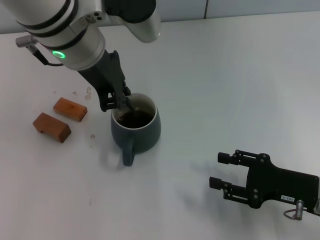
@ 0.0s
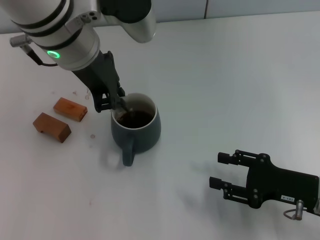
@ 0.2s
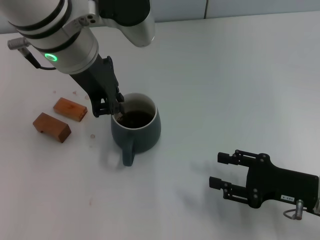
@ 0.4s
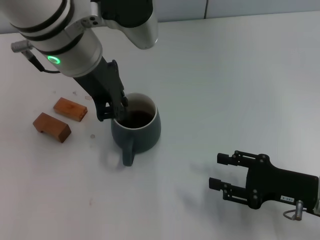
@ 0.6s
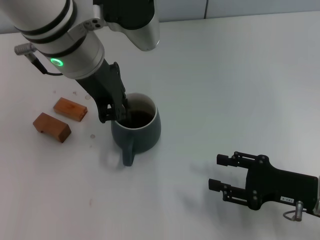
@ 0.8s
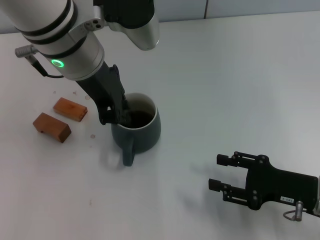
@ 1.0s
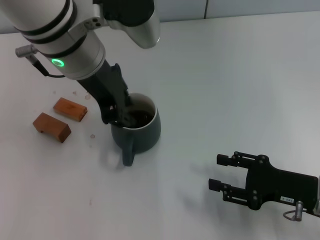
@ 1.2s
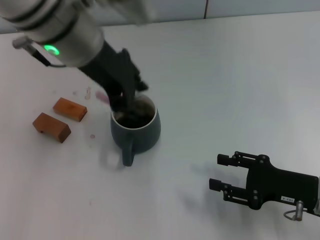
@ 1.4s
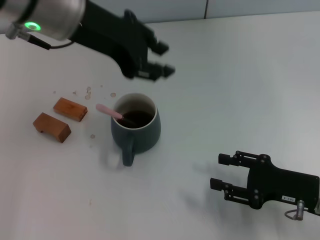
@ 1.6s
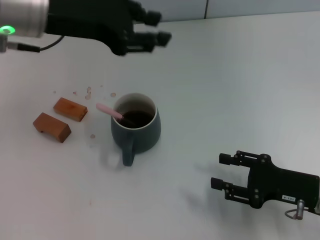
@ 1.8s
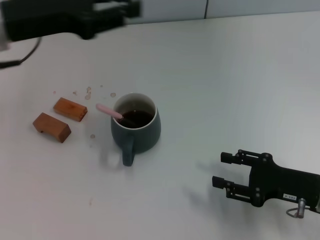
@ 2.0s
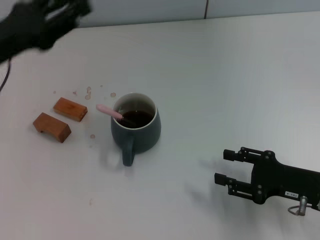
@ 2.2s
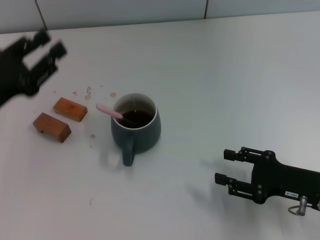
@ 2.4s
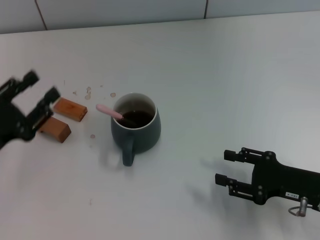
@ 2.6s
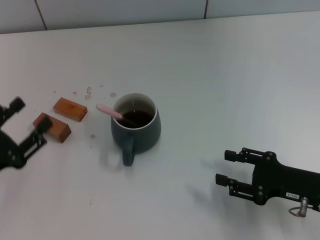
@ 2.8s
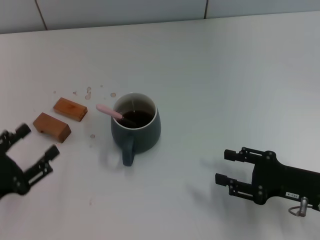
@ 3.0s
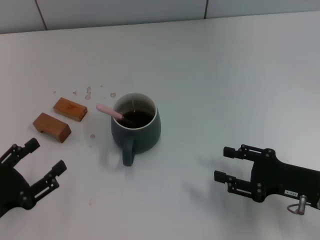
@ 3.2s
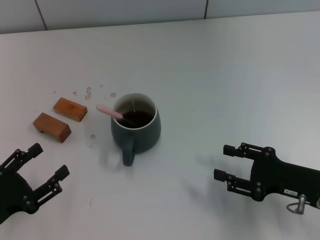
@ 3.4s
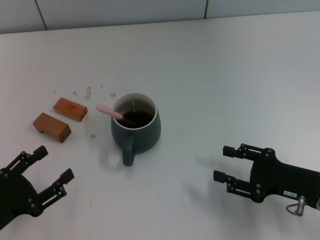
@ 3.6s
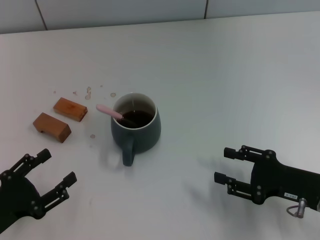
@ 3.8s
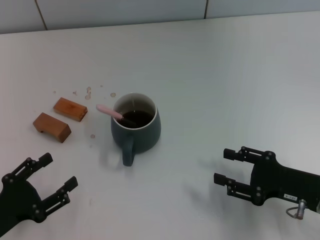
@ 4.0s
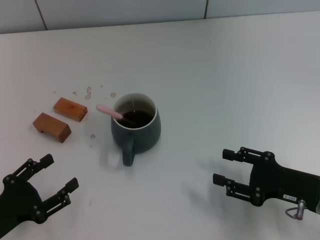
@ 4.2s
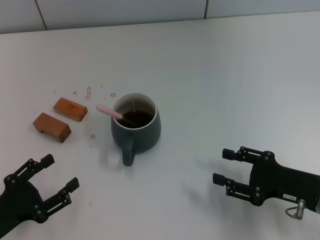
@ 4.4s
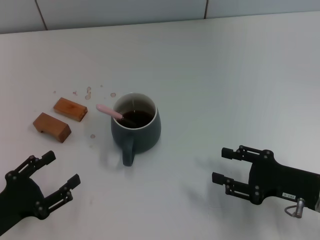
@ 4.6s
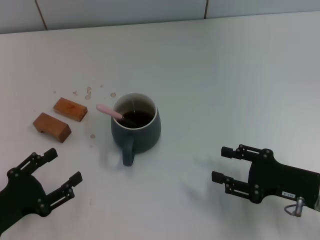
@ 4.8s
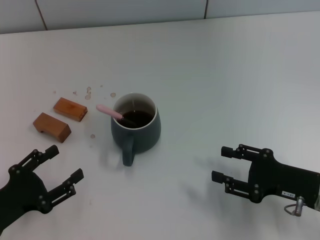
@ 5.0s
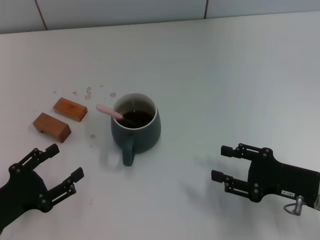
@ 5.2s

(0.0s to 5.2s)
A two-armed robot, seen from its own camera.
Task of the whole recording: Move the grey cup to the center, lift the pink spoon, stir it three times in the cup, and put the spoon into the cup.
0.0s - 1.8s: The left gripper is displaced to the left by roughly 10 cm, and opens up.
1.8s - 3.4s: The left gripper shifts about 35 cm downward, backward and to the left, and opens its fingers.
3.4s - 5.2s: There are only small adjustments of the grippers.

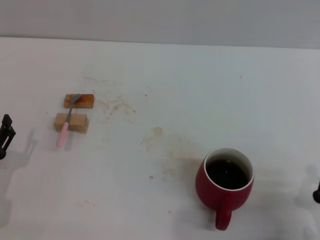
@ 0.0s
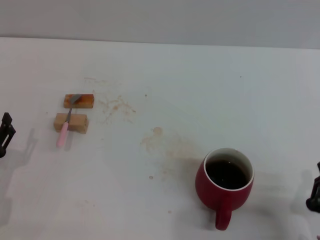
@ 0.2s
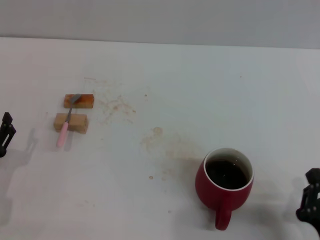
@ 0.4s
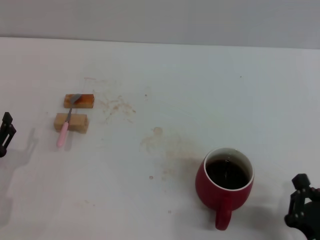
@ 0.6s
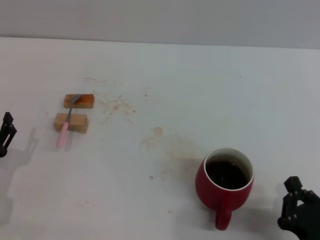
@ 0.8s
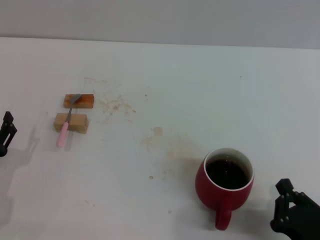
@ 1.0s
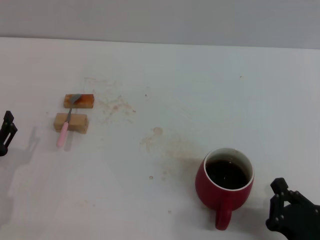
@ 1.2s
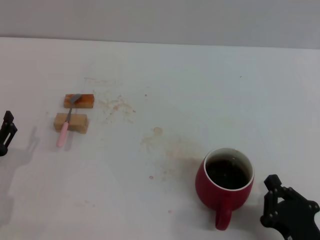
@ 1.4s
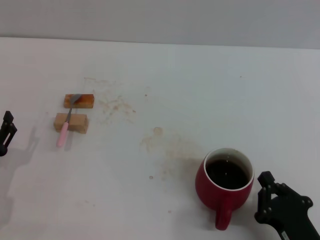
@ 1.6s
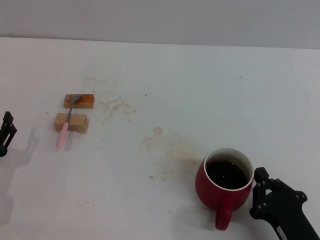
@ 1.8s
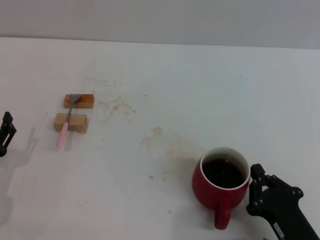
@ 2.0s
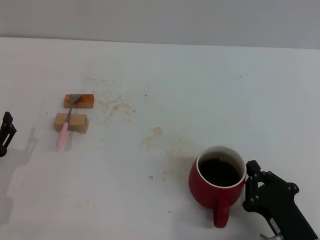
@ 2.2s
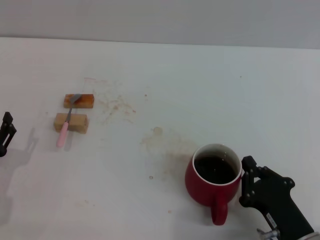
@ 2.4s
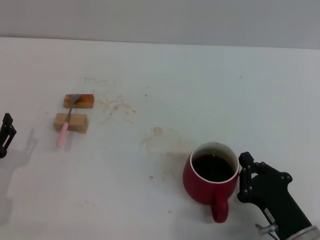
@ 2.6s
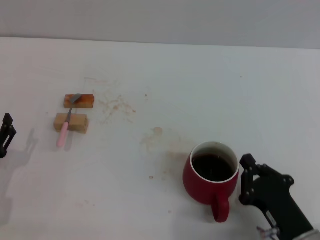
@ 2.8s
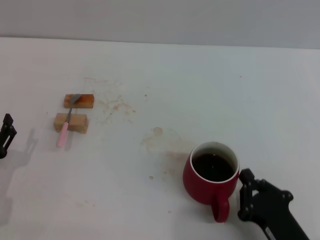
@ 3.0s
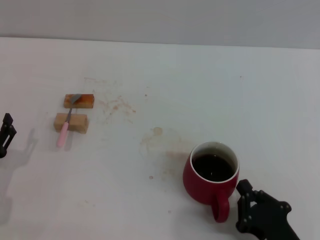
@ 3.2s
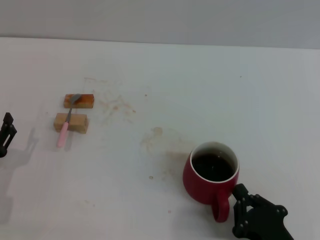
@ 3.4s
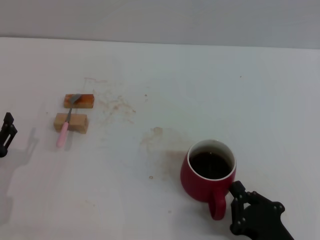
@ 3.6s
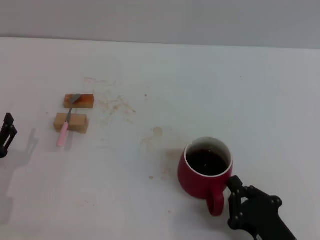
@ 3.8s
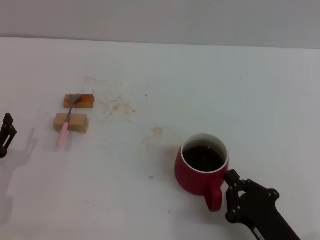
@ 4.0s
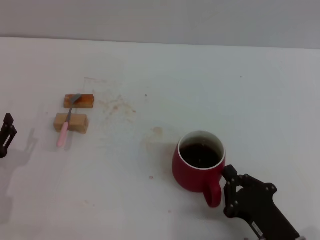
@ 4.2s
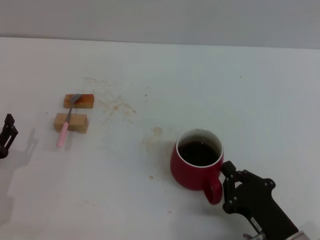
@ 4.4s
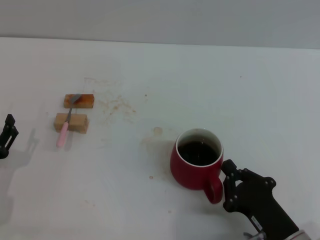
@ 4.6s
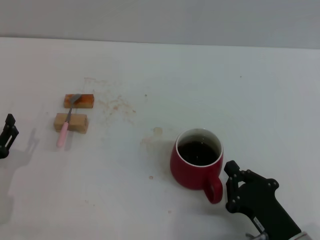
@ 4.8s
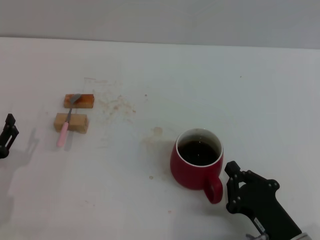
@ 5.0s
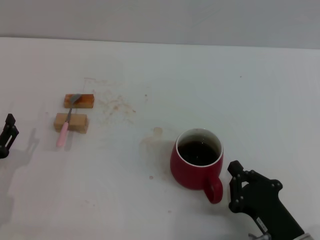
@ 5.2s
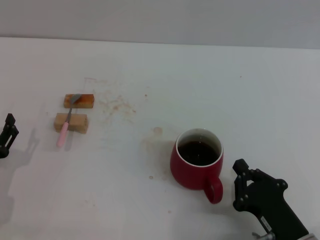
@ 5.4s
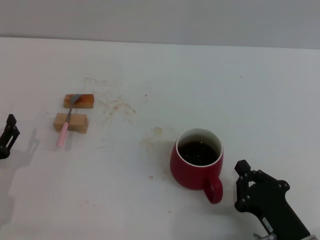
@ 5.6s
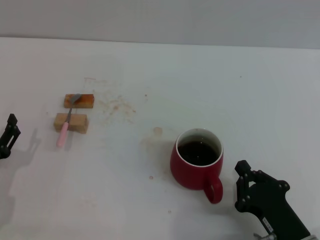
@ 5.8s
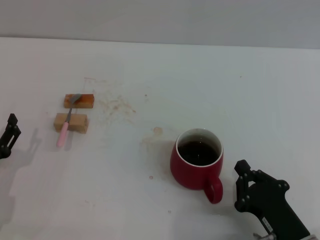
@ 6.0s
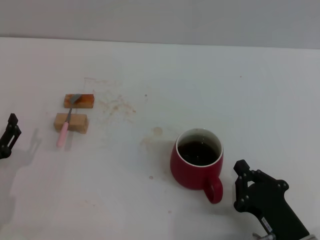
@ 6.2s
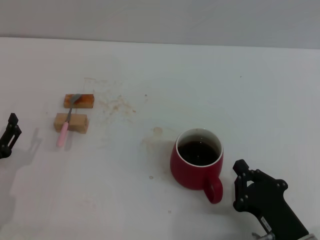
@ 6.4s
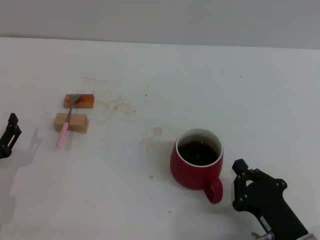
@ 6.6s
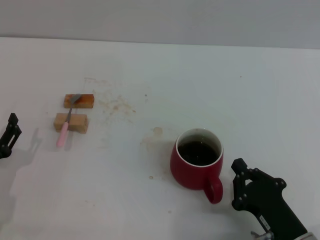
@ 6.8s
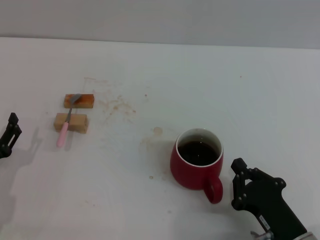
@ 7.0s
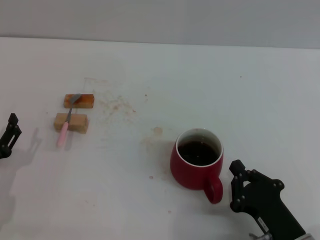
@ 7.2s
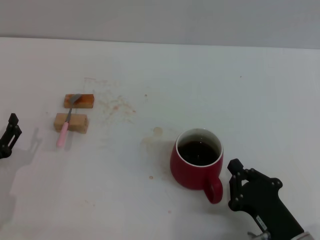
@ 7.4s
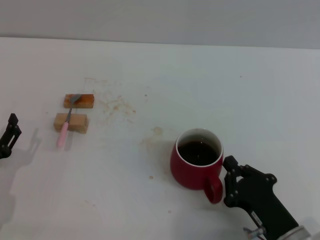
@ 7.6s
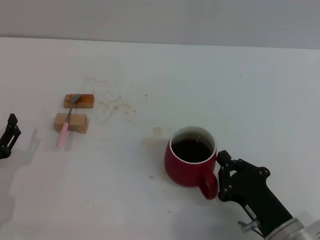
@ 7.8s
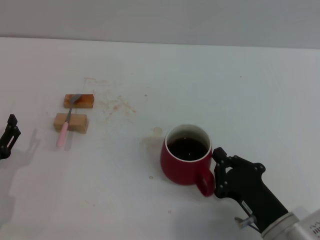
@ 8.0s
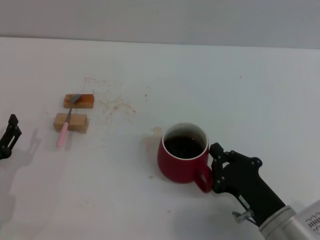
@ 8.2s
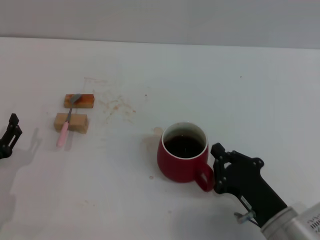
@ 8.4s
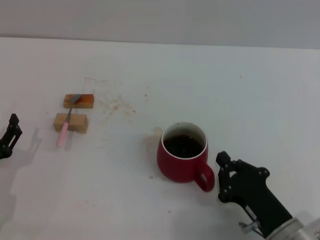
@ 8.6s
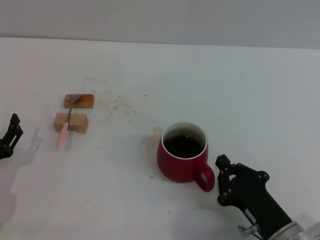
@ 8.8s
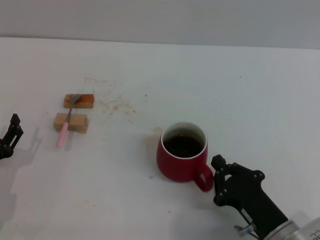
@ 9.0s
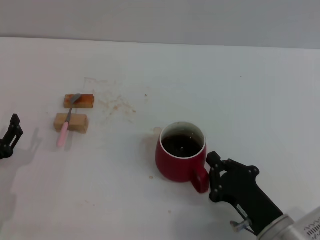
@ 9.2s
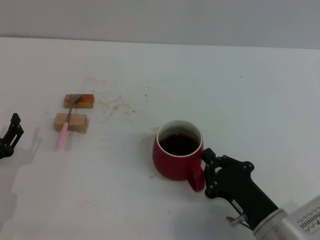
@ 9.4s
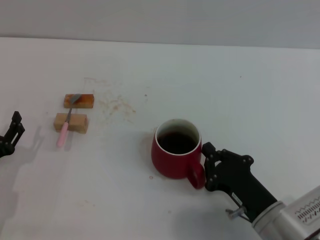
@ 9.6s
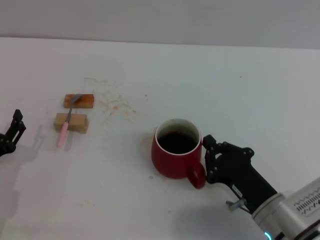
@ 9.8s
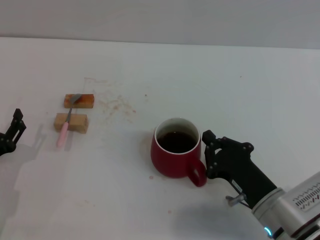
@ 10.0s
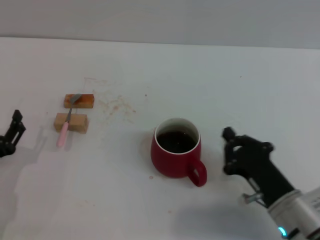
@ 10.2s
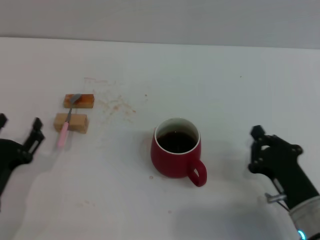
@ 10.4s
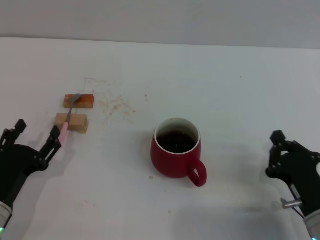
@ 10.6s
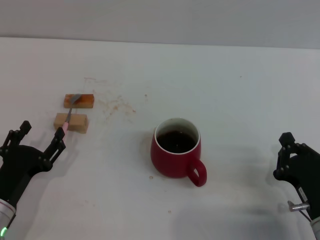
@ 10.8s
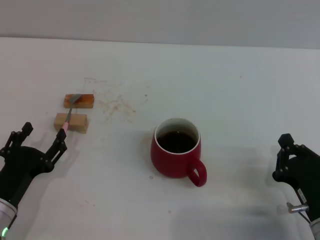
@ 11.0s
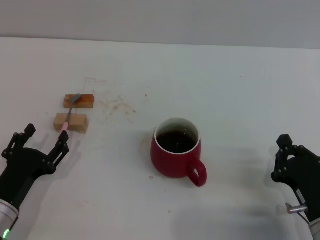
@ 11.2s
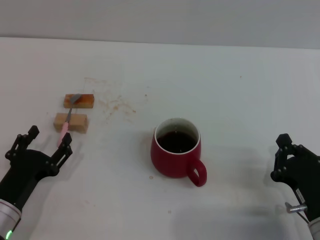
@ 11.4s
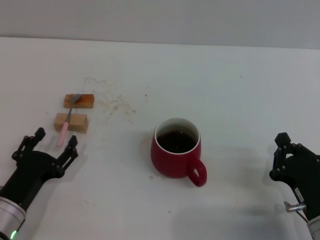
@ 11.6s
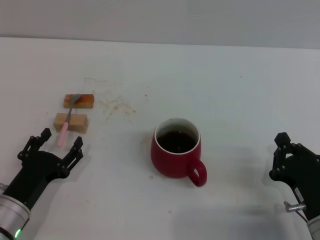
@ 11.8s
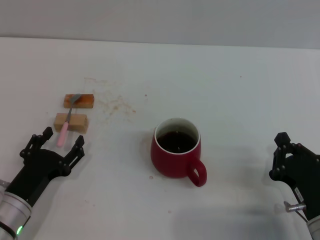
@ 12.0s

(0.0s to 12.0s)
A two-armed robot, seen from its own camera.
Task of the whole recording: Move the red cup to the center, lift the pink spoon, stir it three times in the cup, and put the spoon into the cup.
Step, 0.0s - 10.2s: Move the cup with coffee to the center of view with the right gripper.
0.0s - 1.6s: The grippers stay close to where they were, moving slightly.
1.6s - 4.4s: There are only small adjustments of the grippers.
4.4s - 7.6s: Neither gripper changes place.
7.6s - 12.0s: There are only small adjustments of the grippers.

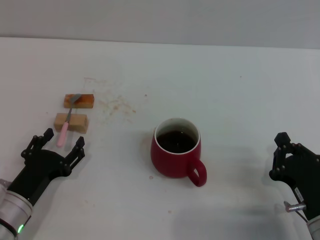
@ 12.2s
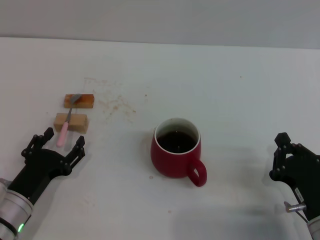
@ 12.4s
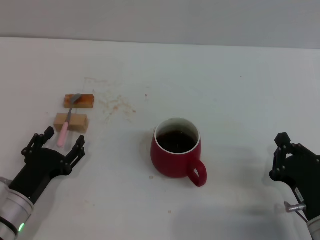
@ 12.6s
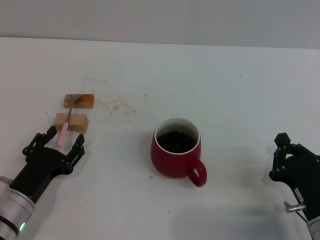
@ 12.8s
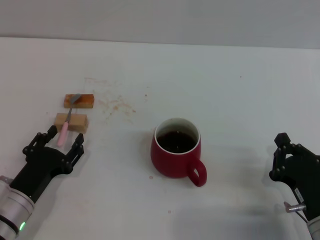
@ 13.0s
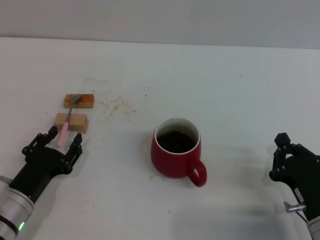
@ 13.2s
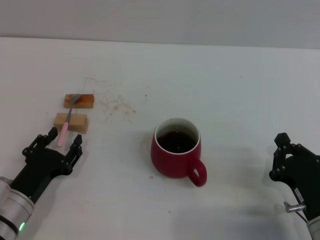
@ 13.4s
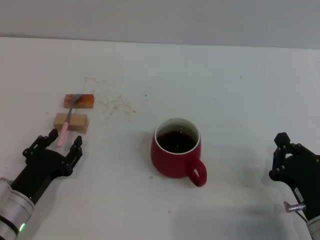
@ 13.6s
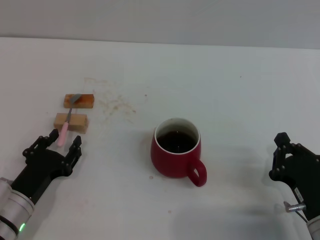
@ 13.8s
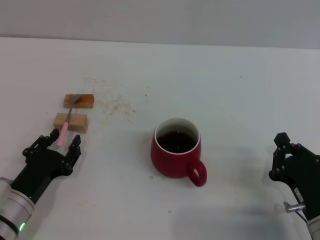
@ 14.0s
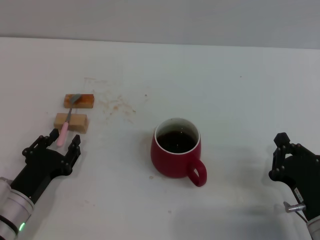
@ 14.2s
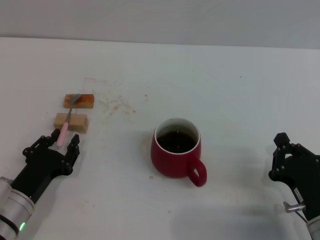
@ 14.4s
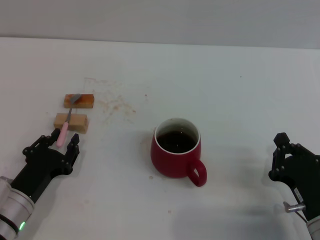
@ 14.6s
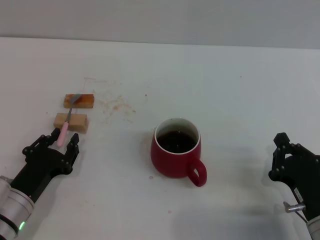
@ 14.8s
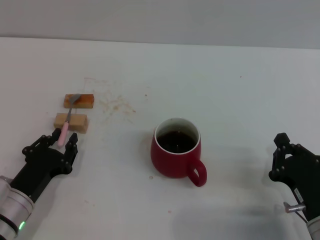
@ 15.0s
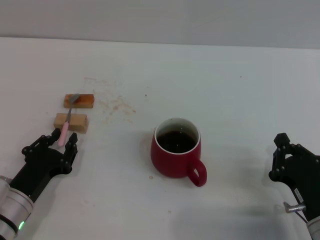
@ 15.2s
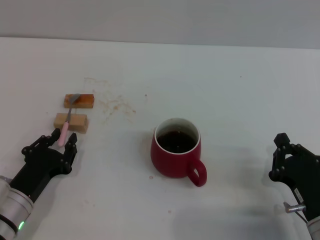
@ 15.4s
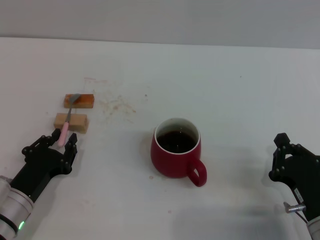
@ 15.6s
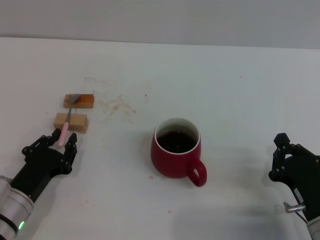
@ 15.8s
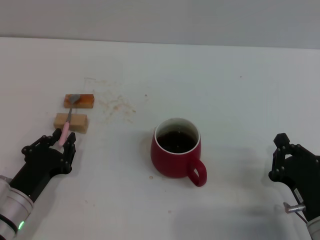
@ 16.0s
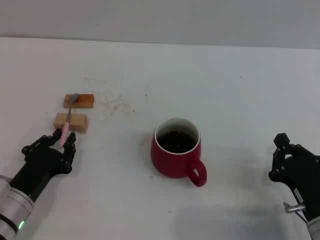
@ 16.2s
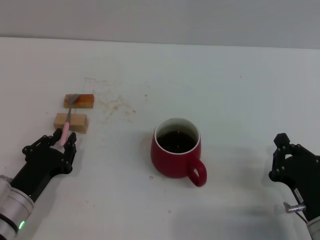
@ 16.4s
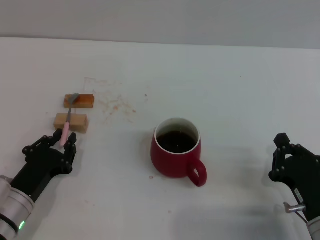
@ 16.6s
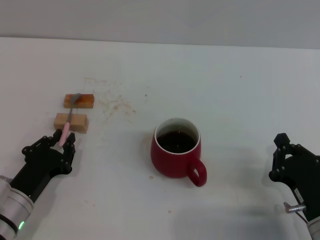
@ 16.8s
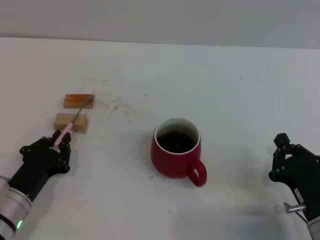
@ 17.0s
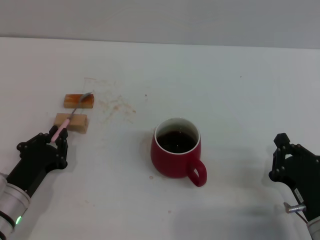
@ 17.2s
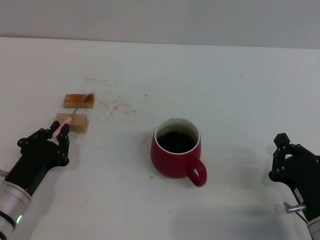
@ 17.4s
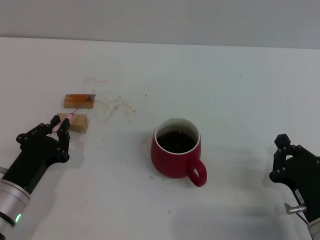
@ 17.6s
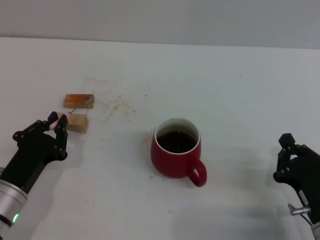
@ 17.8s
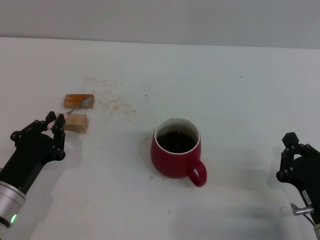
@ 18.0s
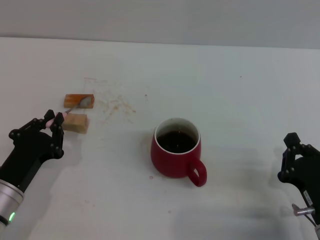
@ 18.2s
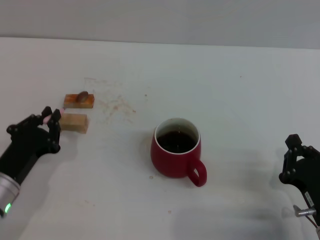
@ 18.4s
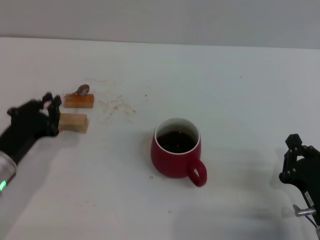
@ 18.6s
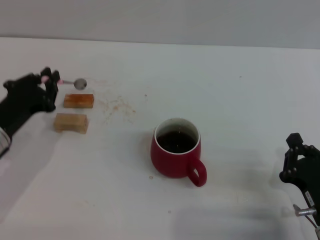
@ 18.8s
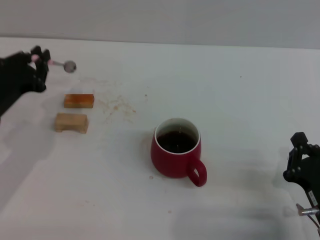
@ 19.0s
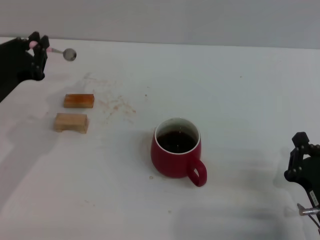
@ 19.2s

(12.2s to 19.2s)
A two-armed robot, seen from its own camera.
Task of the whole recording: Move the red cup to the center, lift the pink spoon, stir it three times in the cup, and put the spoon into the cup.
12.2s - 16.4s: Both grippers stay about where they are.
16.4s - 17.8s: There are only small adjustments of the grippers.
17.8s - 19.2s: The left gripper travels upward and forward by roughly 15 cm.
